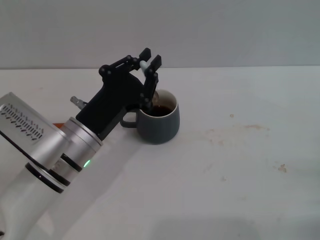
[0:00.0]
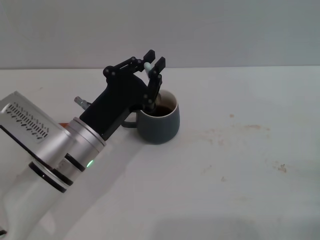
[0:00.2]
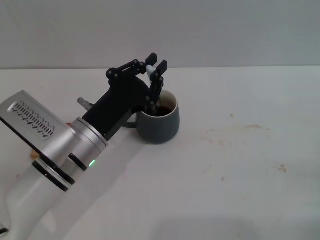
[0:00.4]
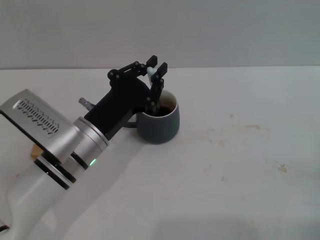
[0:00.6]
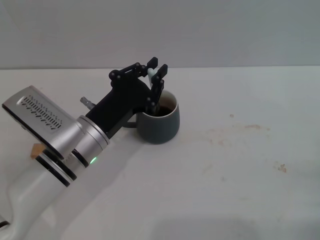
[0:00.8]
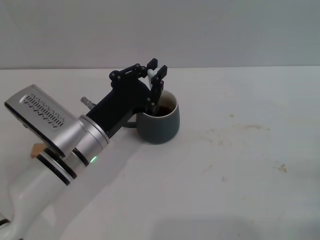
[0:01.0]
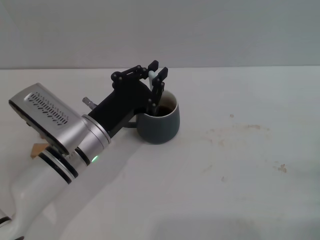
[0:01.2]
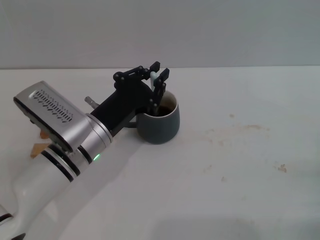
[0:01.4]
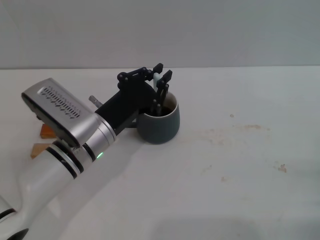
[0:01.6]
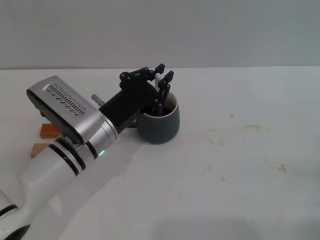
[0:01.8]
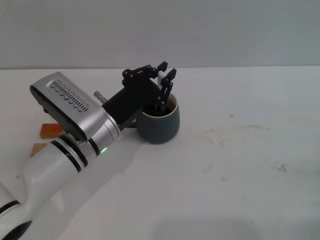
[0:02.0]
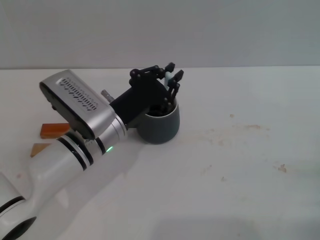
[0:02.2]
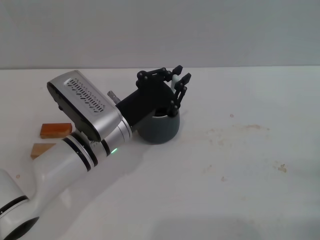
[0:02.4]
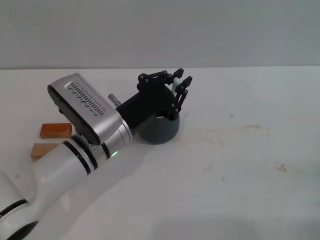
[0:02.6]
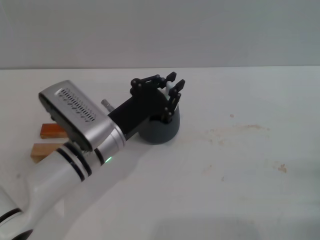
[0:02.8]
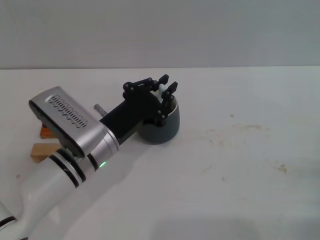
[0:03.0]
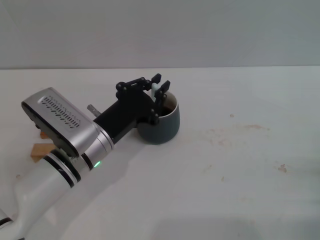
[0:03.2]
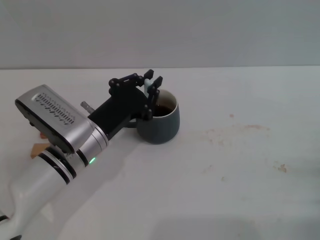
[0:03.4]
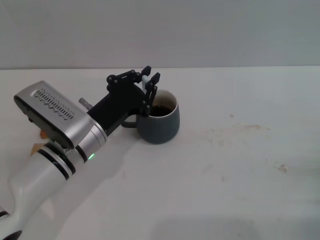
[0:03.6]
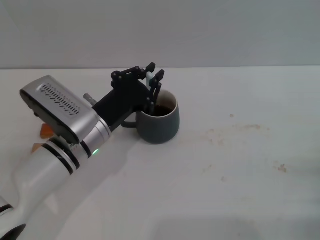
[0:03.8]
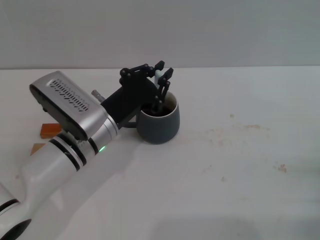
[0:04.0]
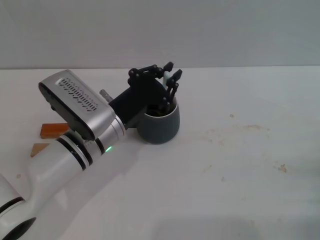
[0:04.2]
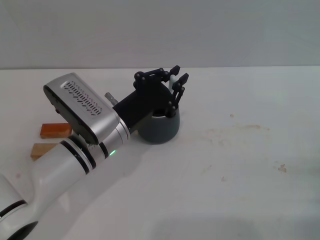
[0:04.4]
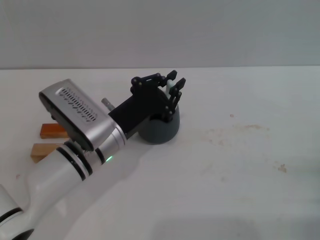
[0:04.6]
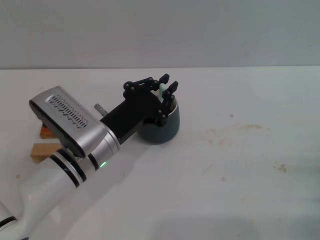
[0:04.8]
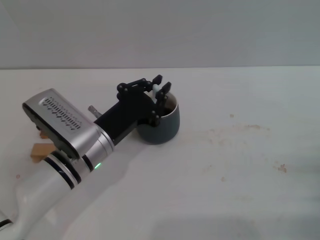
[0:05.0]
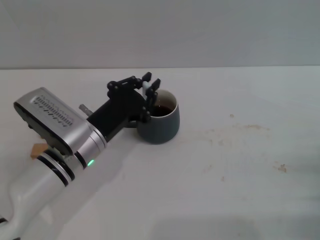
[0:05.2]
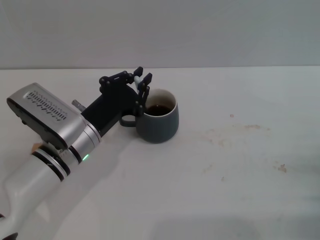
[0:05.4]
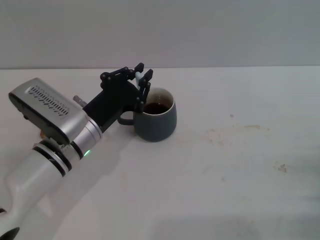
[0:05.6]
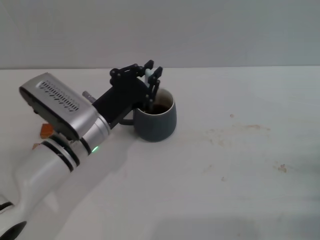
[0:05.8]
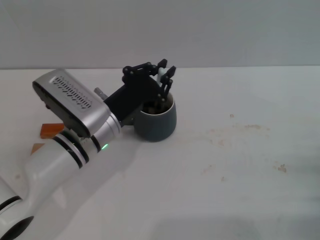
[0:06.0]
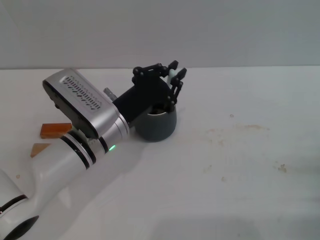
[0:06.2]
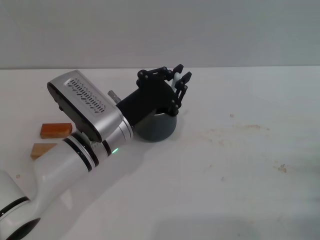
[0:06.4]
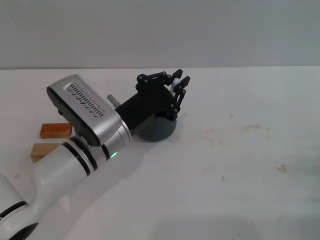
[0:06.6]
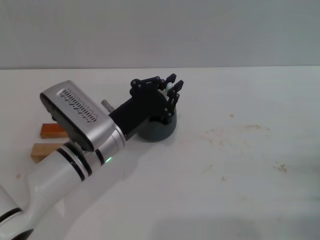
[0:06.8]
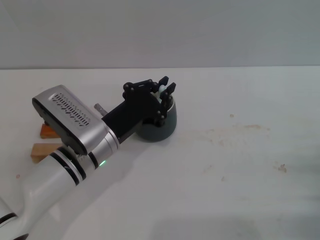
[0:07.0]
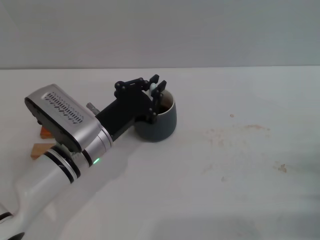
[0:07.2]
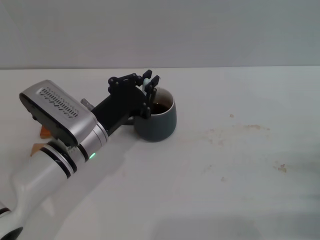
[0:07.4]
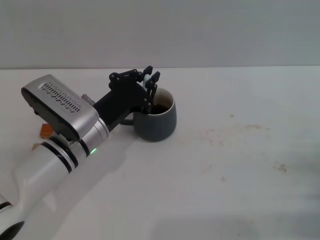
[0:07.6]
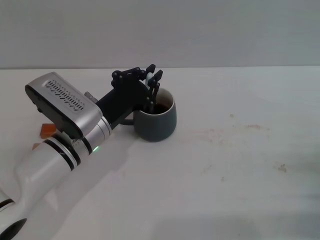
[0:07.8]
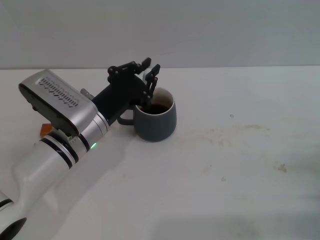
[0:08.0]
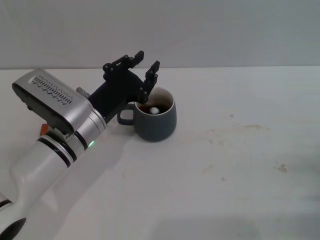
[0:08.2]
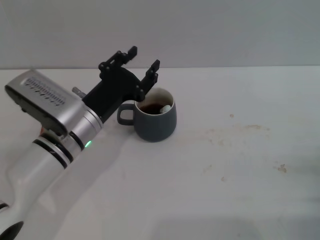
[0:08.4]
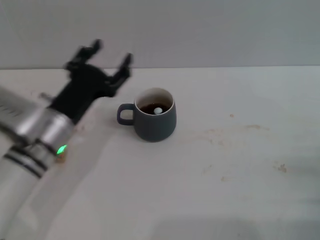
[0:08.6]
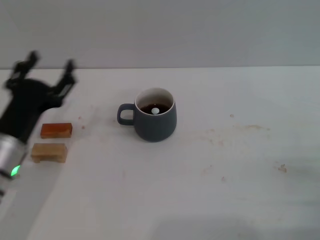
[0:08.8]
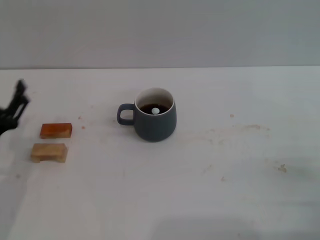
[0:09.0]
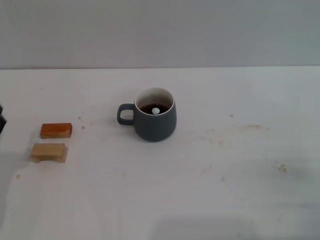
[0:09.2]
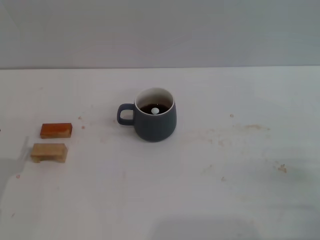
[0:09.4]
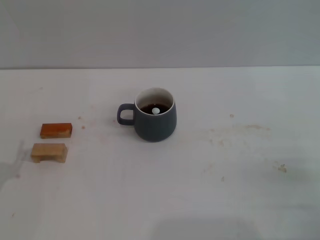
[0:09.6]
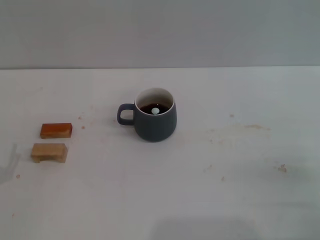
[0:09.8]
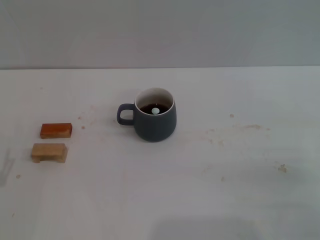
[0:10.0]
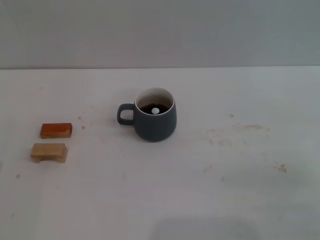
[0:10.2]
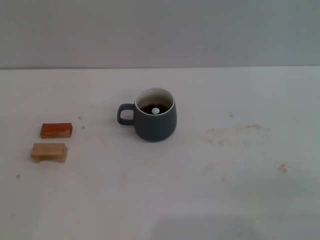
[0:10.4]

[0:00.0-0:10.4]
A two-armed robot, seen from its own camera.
Task of the whole recording: Move the grey cup to the center, lift the blue spoon, stir it three times in the cup, and put the spoon into the cup.
Step, 0:00.0 to 0:08.4: Stir the coffee in the cup with the left gripper.
0:00.0 to 0:07.4: The grippers move only a little.
0:07.4 to 0:09.0: The left gripper is displaced to the left and backward by approximately 15 cm, and opens up.
0:09.0 to 0:10.4: The left gripper moves backward and to the left, some 10 cm.

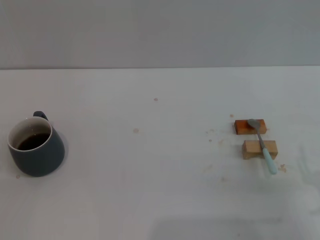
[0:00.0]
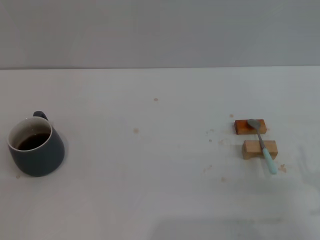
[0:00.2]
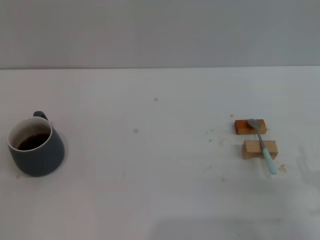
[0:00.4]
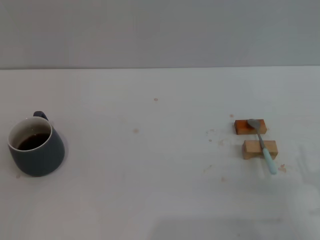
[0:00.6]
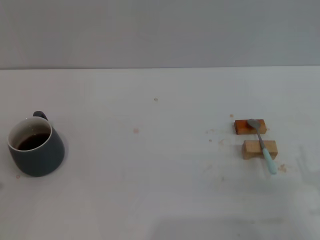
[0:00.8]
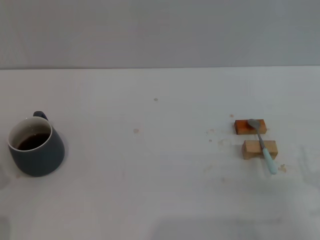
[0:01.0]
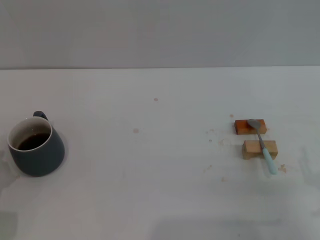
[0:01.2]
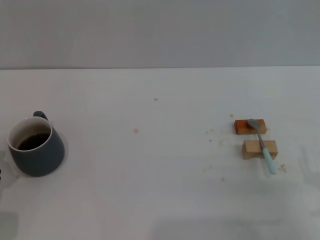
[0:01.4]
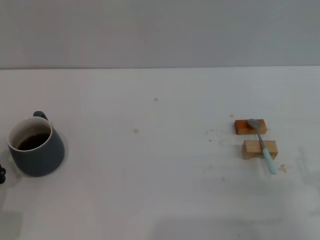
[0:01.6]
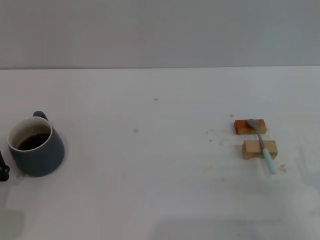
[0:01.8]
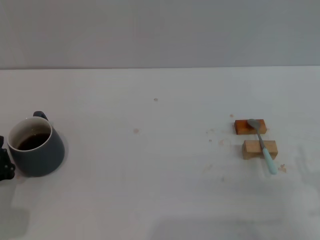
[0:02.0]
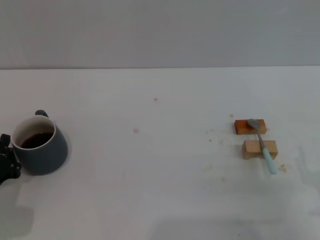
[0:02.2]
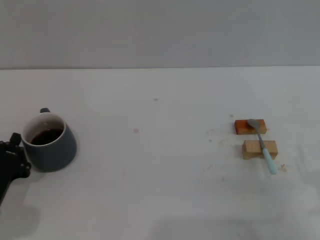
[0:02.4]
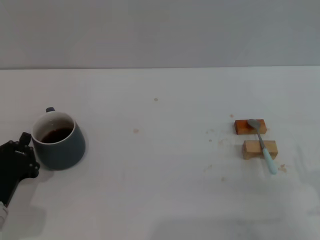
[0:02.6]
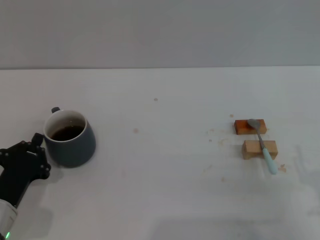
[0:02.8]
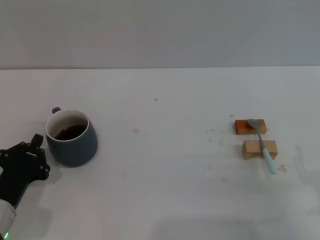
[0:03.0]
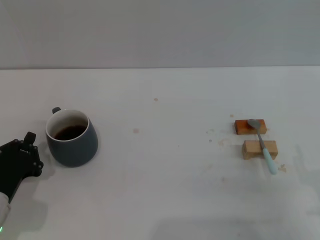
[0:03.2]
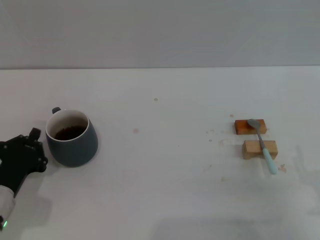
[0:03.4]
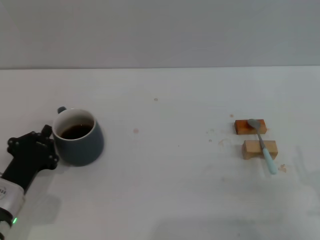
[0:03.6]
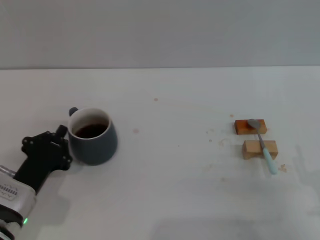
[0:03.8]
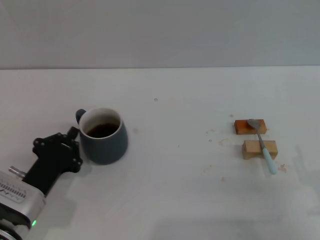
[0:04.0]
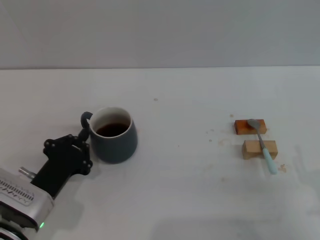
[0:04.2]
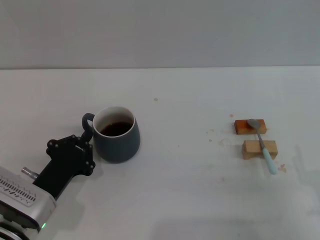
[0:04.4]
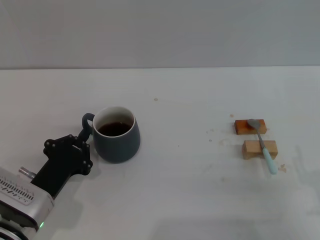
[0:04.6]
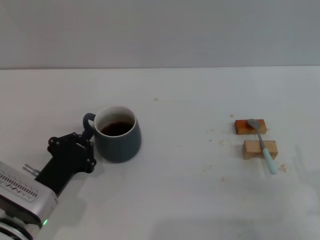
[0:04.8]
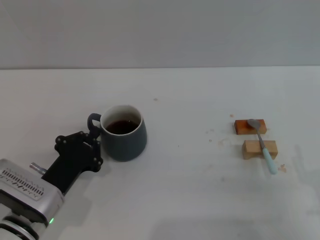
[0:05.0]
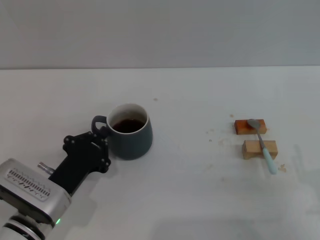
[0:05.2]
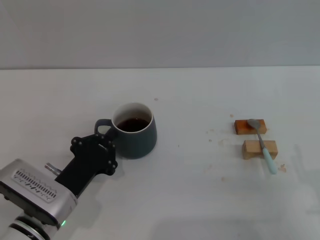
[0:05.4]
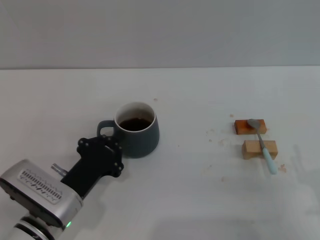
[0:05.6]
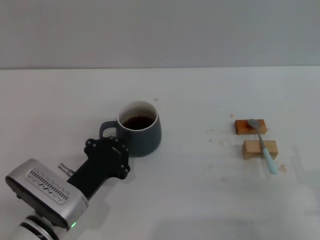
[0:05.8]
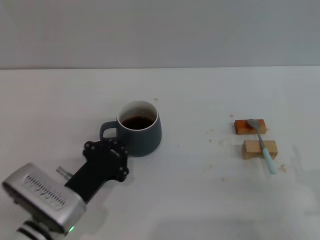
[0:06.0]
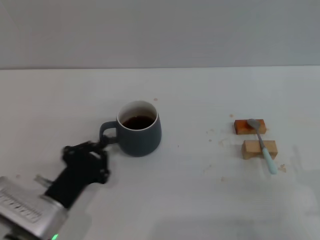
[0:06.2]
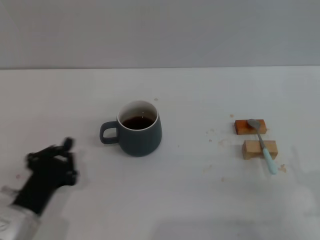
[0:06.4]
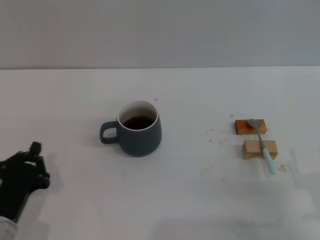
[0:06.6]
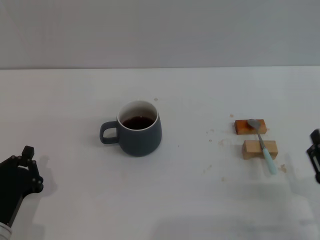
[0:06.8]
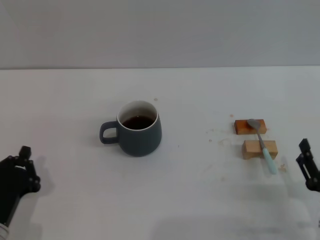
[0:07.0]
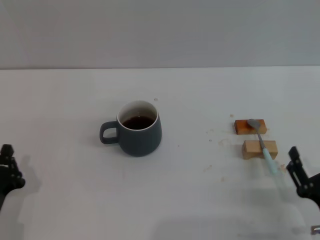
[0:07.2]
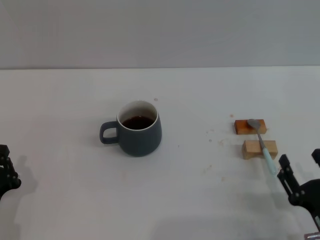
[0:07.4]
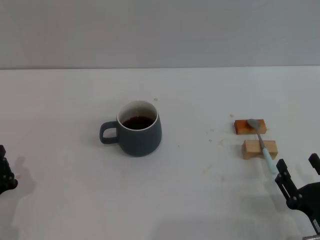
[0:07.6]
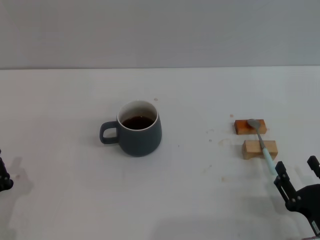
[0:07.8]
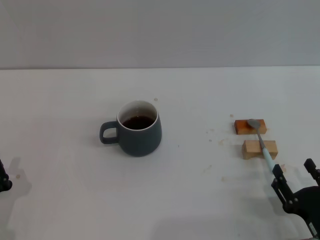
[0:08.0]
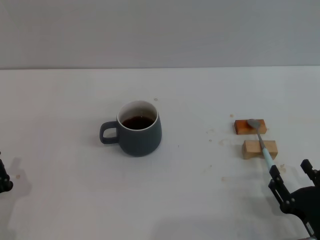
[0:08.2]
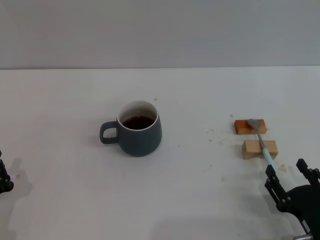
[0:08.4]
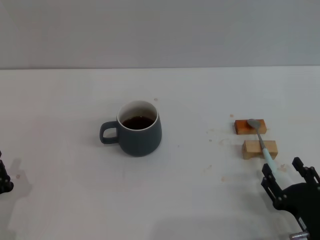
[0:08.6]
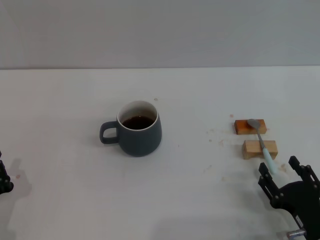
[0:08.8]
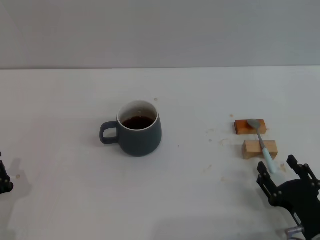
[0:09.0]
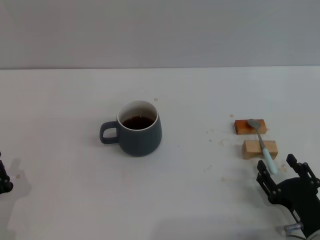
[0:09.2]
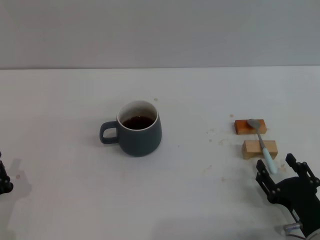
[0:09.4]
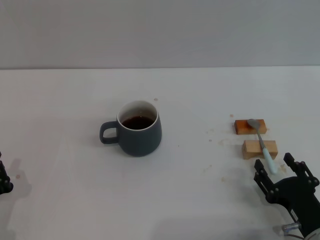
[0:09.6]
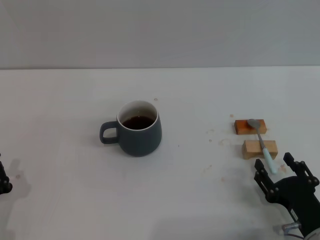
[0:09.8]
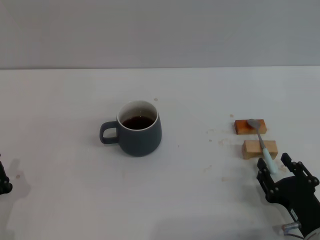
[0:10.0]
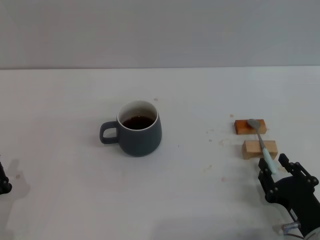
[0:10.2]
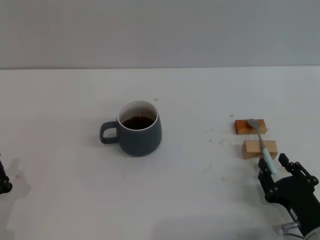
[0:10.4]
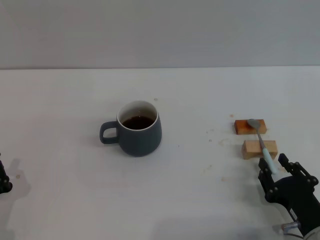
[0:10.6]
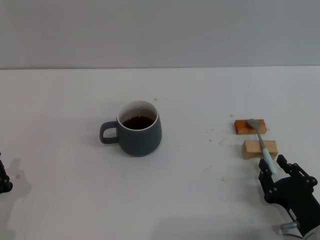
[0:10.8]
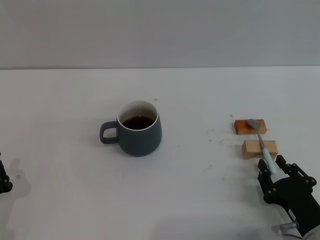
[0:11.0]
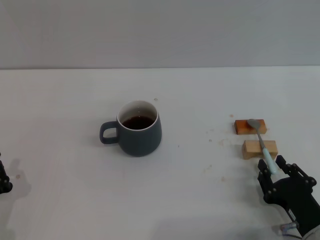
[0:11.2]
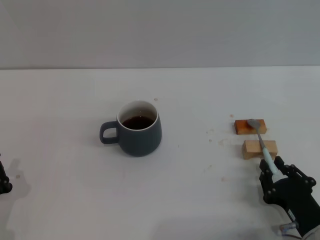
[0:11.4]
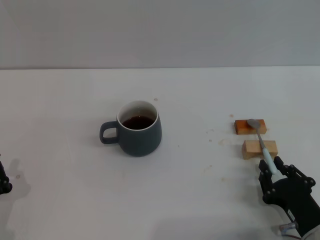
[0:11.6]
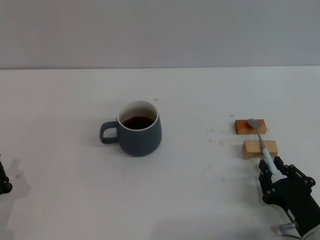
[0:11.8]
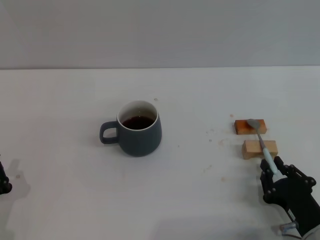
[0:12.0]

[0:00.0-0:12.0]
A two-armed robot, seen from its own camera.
Task of the whole recording: Move the grey cup to the center, lift the blue spoon, stir it three times in the cup, and put the spoon into the cup.
Step, 0:00.0 to 0:06.2: Move the cup with coffee to the center of view with the left gripper.
0:01.6 to 0:03.0: There are only small adjustments of the grippers.
0:03.0 to 0:04.4: The left gripper shifts by approximately 5 cm.
0:04.4 to 0:06.0: There are only small adjustments of the grippers.
0:06.0 to 0:07.6: The left gripper shifts some 10 cm to the left and backward. The right gripper changes place by some 5 cm.
0:07.6 to 0:09.0: The grippers stay close to where they were, moving slightly.
0:09.0 to 0:10.4: The right gripper closes its fingers.
0:10.4 to 0:12.0: Neither gripper changes place.
